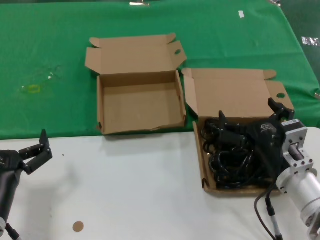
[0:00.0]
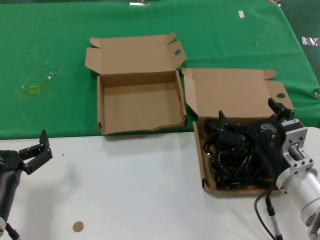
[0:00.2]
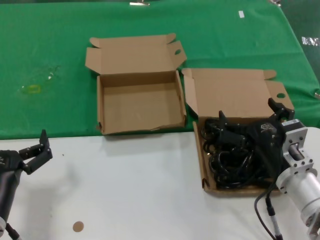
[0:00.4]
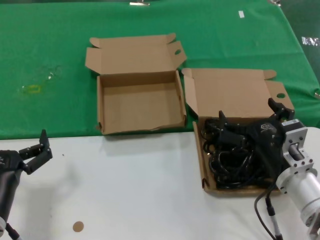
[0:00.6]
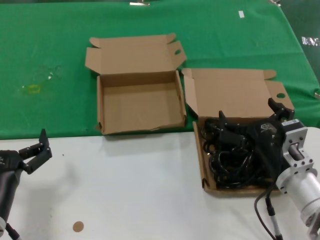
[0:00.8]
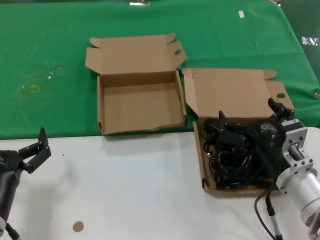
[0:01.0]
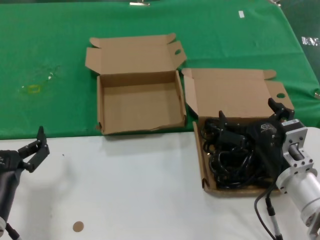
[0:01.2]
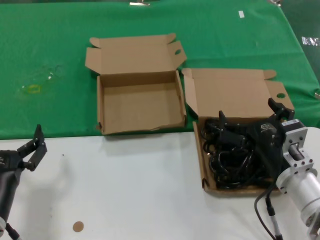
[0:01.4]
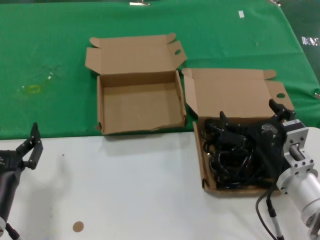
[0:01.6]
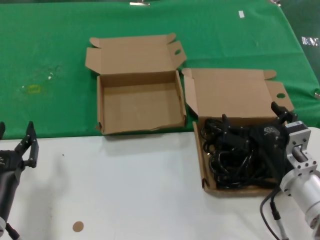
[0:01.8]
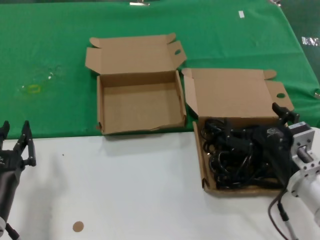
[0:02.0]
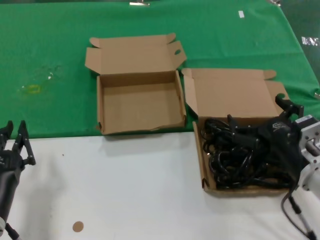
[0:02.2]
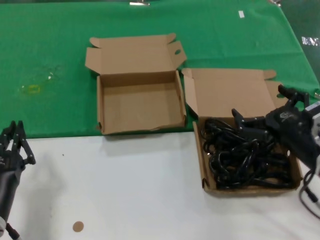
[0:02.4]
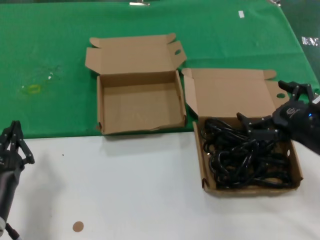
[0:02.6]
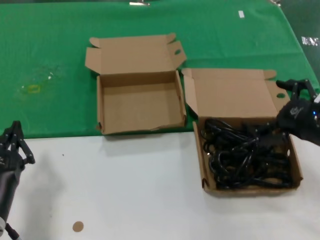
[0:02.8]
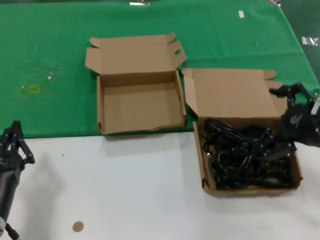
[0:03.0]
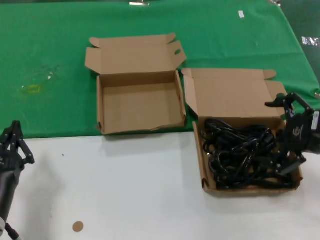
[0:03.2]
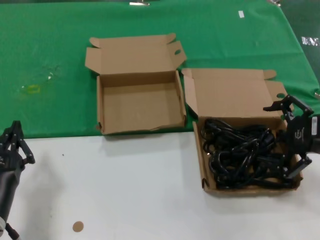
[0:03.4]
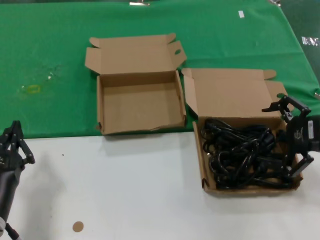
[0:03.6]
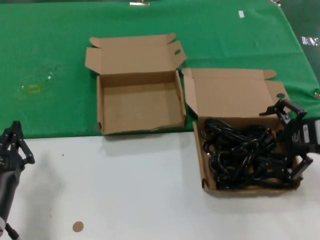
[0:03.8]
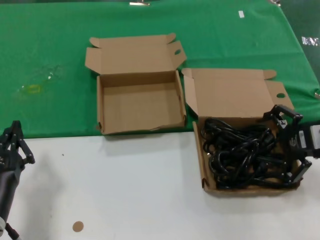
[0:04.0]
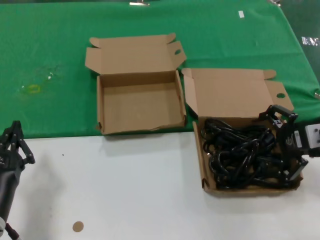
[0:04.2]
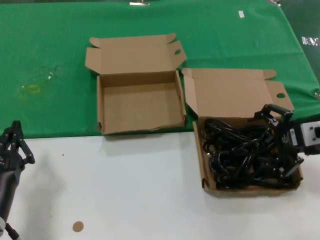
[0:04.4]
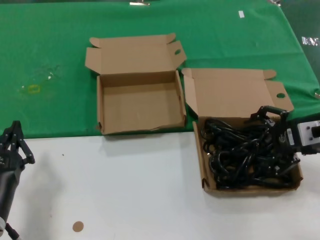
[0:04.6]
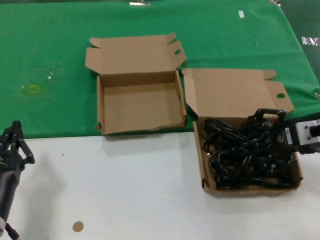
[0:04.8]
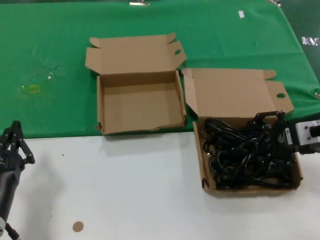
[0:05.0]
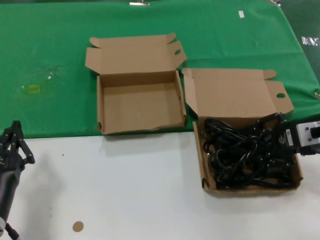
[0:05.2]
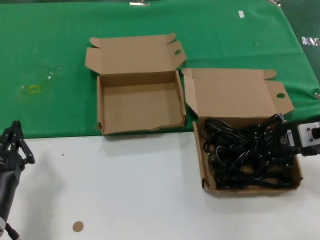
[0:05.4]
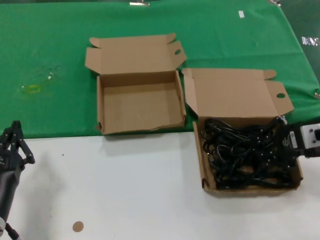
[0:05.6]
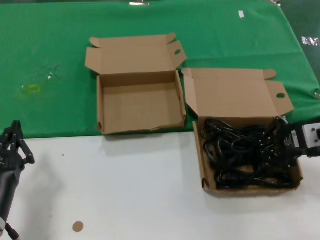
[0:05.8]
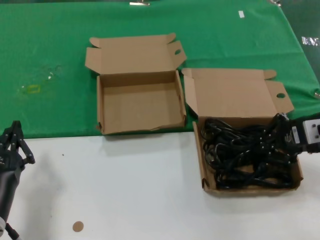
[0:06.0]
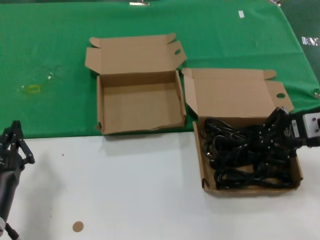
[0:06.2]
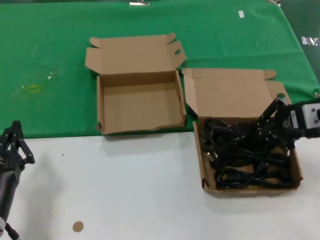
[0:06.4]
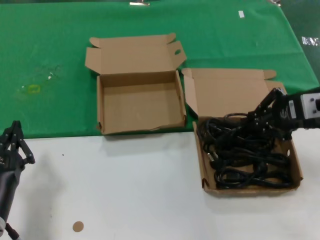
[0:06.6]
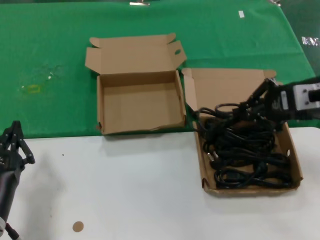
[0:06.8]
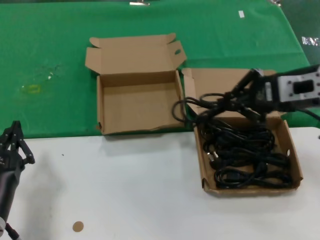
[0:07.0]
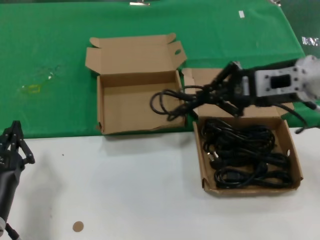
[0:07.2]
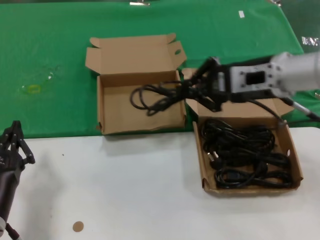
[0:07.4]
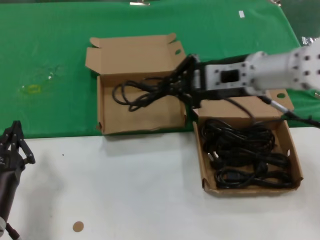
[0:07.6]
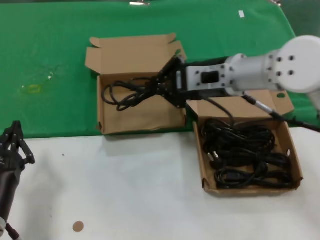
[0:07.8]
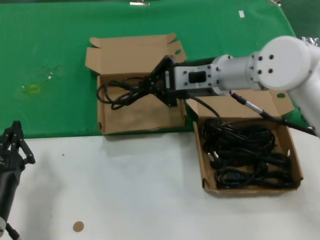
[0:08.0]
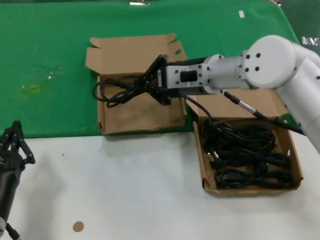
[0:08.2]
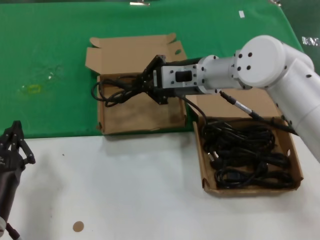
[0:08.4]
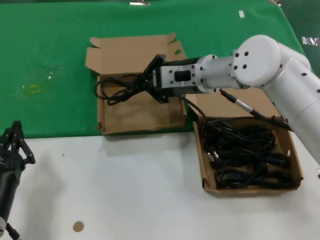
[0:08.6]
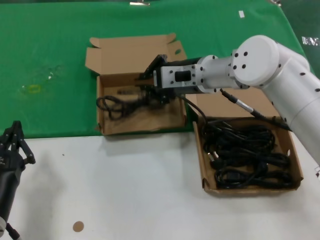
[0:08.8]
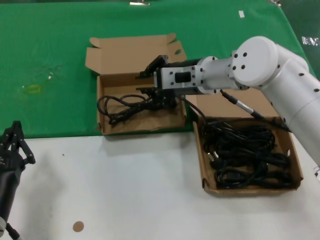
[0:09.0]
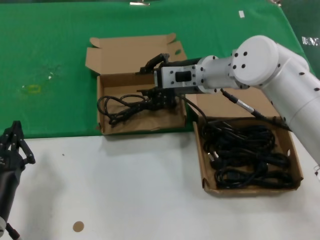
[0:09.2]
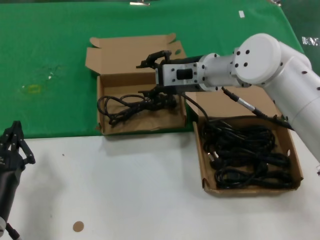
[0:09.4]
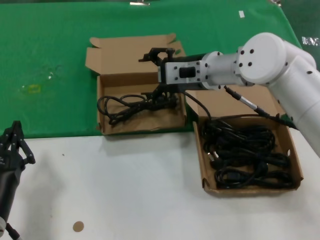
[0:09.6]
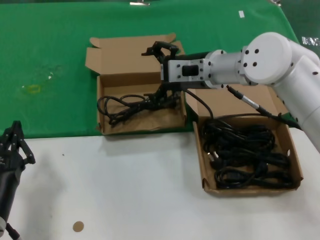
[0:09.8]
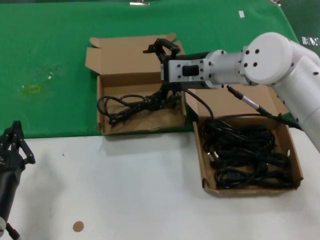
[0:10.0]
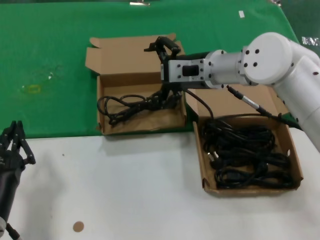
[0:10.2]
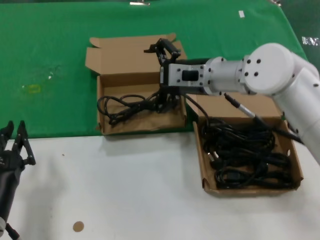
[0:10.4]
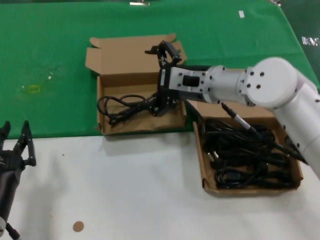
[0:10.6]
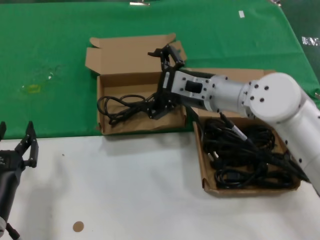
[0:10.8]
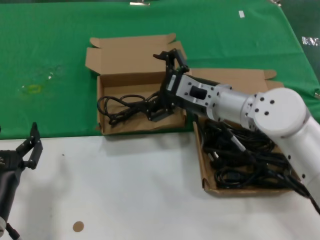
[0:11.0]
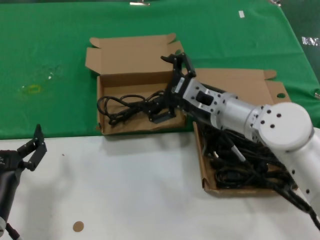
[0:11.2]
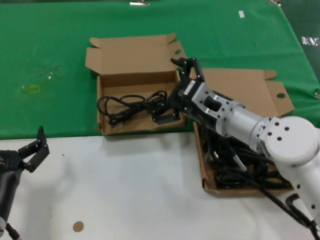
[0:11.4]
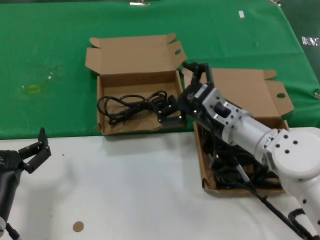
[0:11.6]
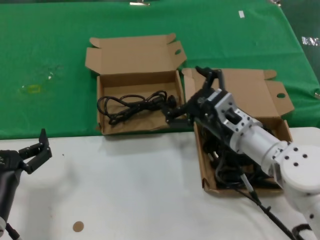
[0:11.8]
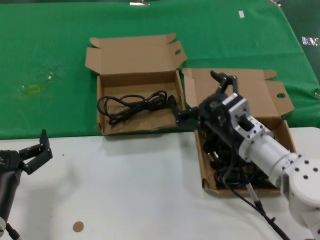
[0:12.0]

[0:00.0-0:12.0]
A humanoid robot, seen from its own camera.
Task of the whole recording: take the parts from the box containing them and put them into an empty box.
Step, 0.0 to 5.4 s: Grasp the data cable.
Step, 5.8 to 9.0 s: Place the data cable in the another box.
0.0 to 1.6 s: Neither hand changes place.
1.6 to 3.0 s: The right hand heads to the right and upward, covering approximately 15 cm.
3.0 to 4.4 s: The right hand moves forward, approximately 5 cm.
4.4 to 6.0 s: Both hands stay put.
6.0 to 7.6 s: The right hand is displaced to the left and upward by some 15 cm.
7.6 to 9.0 s: The right hand is displaced forward and to the left by some 10 cm.
9.0 to 10.4 s: The hands stay close to where they were, moving slightly.
10.4 to 12.0 s: The right hand is displaced downward and backward by approximately 15 cm.

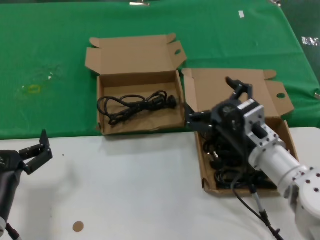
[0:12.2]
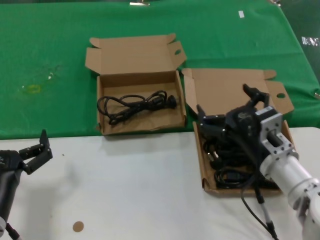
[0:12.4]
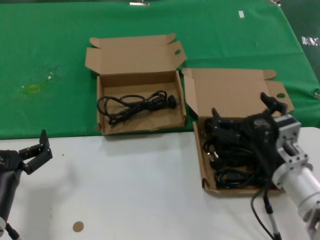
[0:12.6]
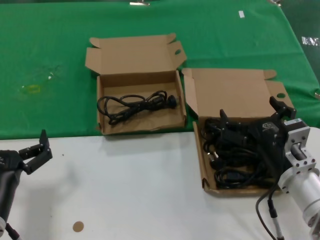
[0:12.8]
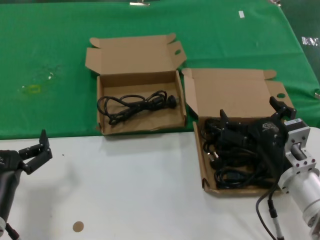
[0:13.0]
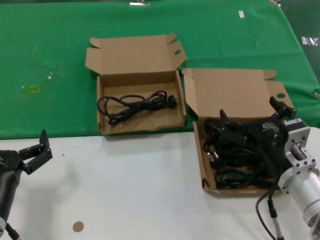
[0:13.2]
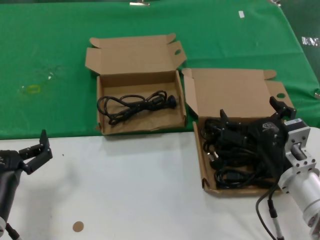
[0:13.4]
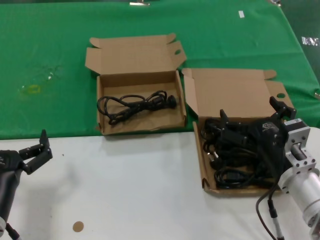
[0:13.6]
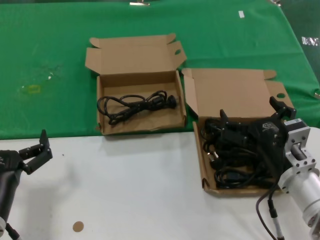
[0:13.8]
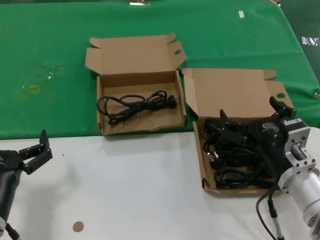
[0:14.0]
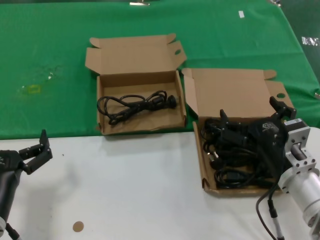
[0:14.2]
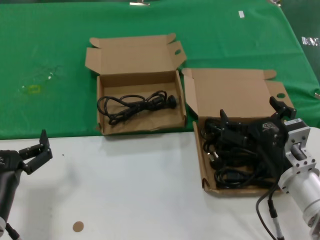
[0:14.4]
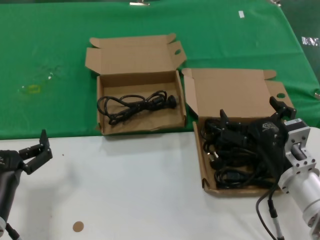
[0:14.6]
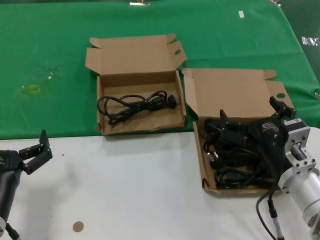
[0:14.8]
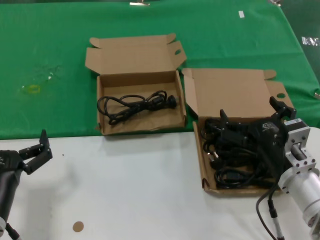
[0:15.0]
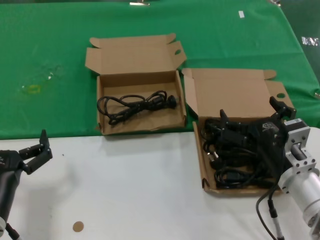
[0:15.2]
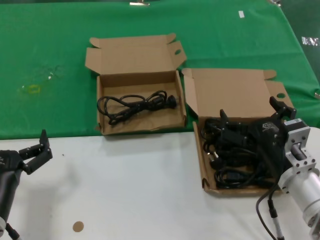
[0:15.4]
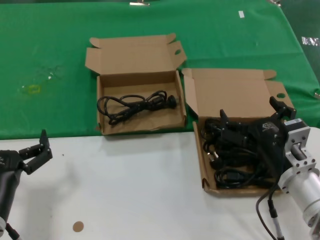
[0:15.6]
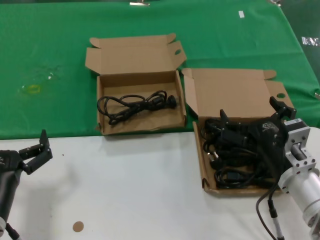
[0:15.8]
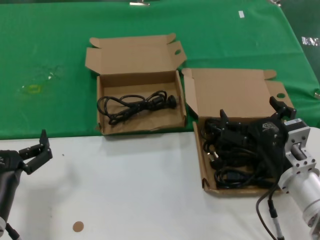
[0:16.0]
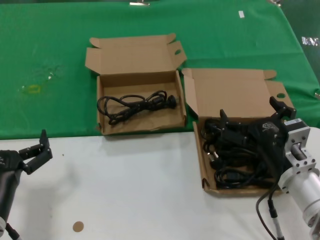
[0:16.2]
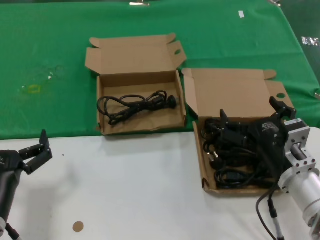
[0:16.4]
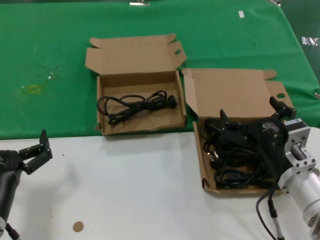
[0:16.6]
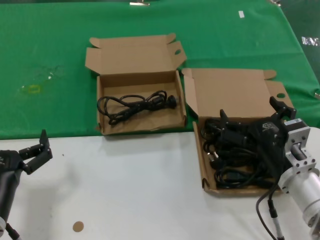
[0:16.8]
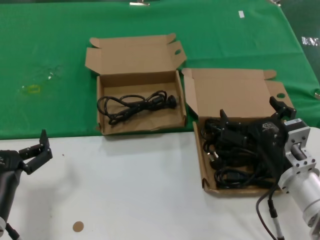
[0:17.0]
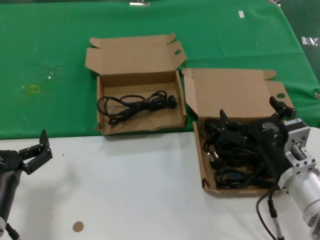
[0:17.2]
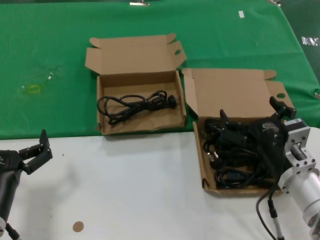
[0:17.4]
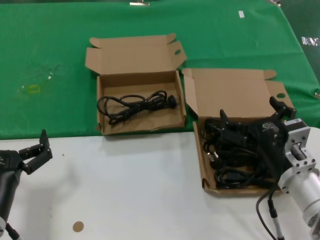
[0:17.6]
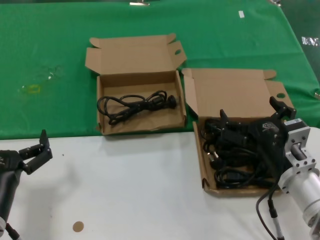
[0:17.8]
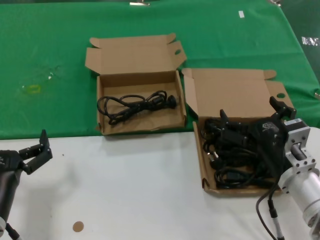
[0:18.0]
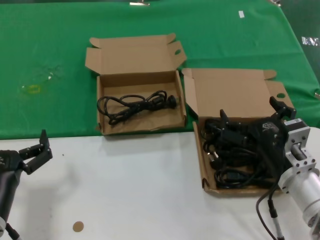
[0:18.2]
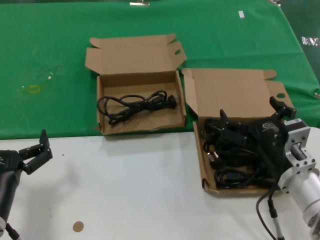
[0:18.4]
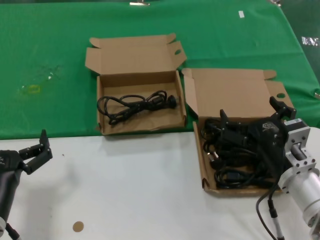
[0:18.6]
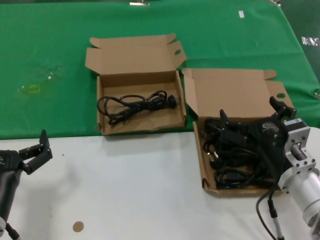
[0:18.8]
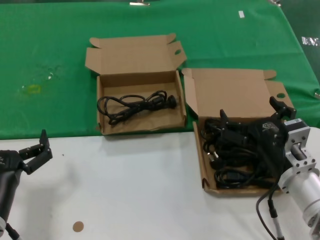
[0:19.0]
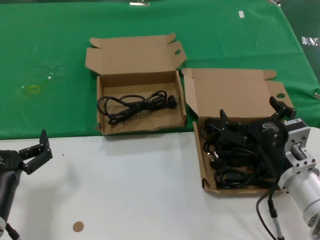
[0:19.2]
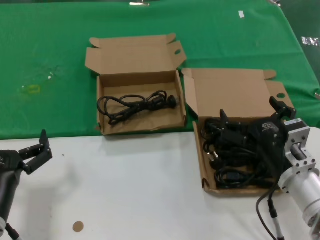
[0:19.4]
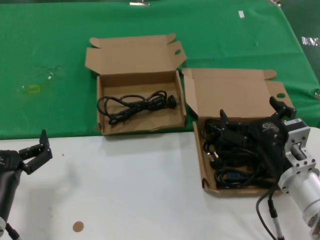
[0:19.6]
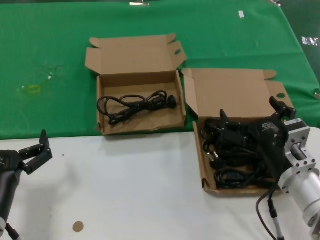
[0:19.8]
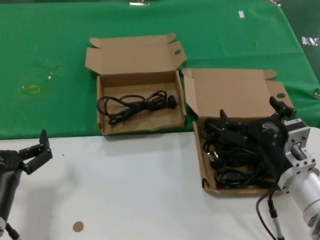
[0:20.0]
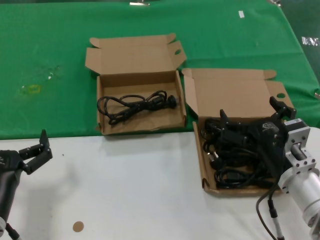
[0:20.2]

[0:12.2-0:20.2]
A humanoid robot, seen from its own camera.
Task of the whole recording: take the parts from the box containing them and put them into an empty box.
12.2 to 13.8 s: The right hand moves backward, some 5 cm.
13.8 to 20.2 s: Neither hand changes place.

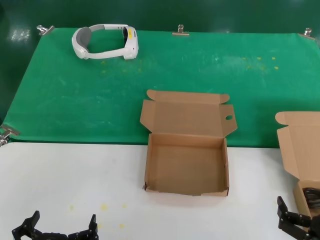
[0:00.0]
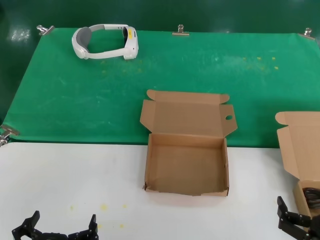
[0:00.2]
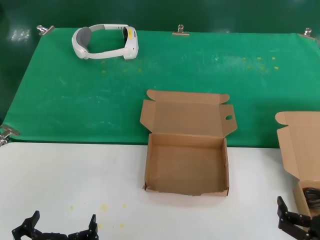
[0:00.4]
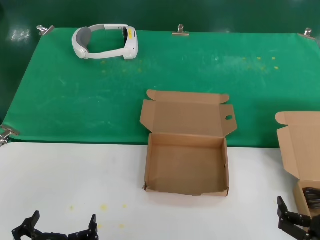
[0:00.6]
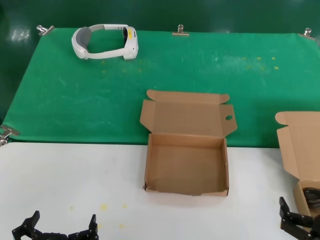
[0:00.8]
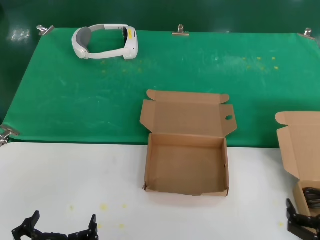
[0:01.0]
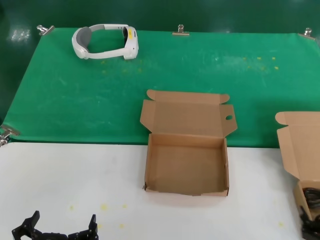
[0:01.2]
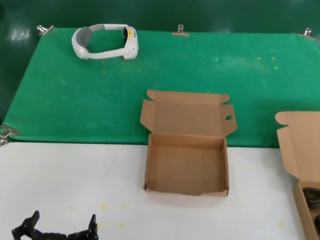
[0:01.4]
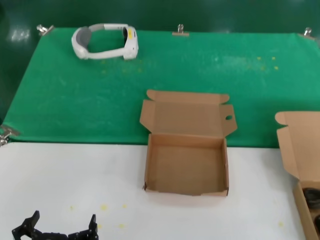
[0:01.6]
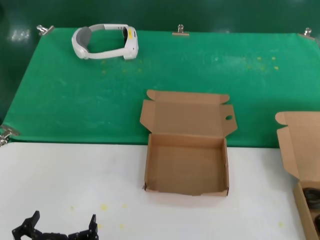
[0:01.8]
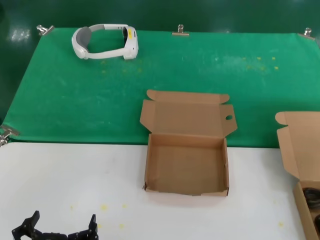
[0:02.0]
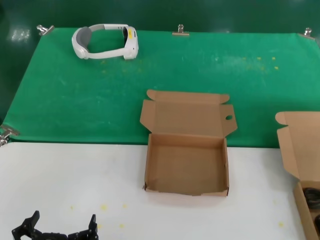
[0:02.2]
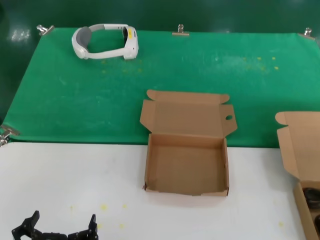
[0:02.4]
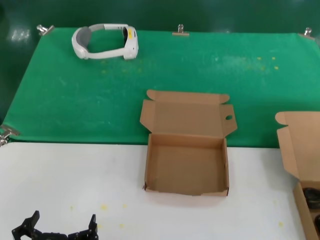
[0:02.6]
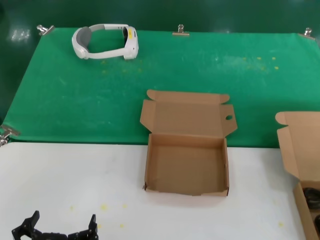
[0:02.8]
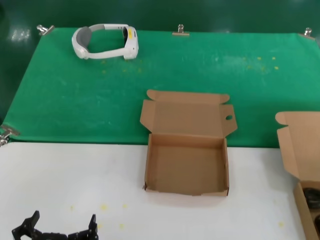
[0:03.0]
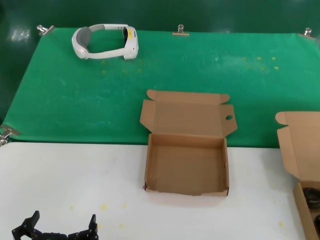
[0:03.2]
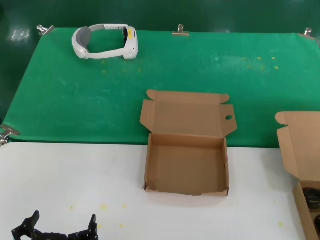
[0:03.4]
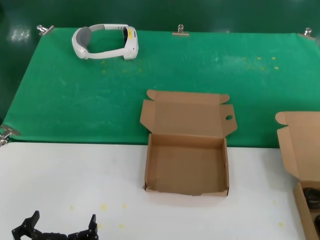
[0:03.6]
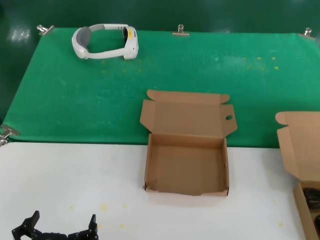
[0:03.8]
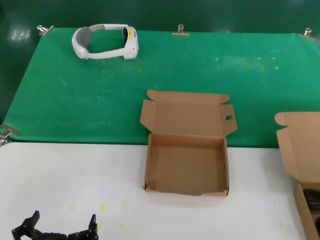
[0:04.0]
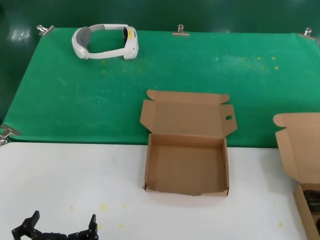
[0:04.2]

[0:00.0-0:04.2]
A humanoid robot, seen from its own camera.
Task of the whole recording: take the parts from the box containing them and put them into an empty box.
0.0 to 1.4 s: The right hand shifts approximately 5 cm to the right.
1.4 to 2.8 s: The right hand is displaced forward and to the right by roughly 15 cm.
